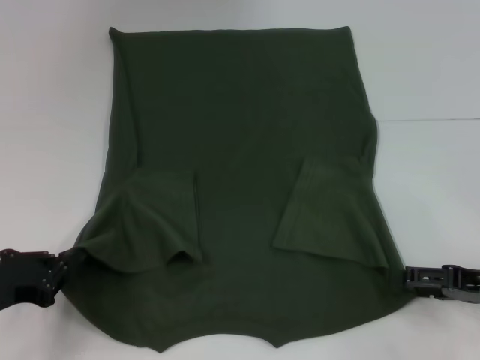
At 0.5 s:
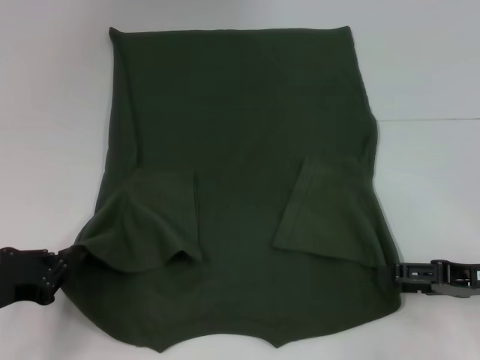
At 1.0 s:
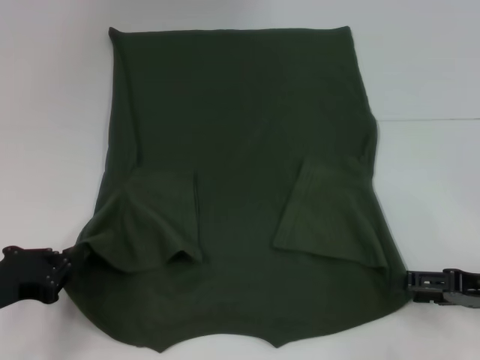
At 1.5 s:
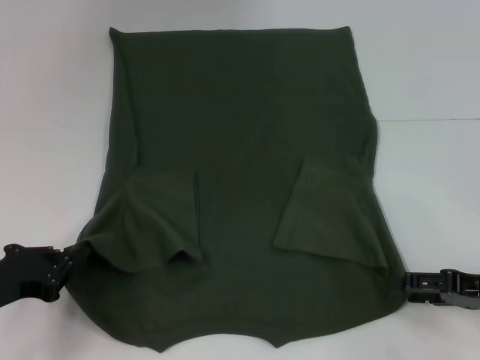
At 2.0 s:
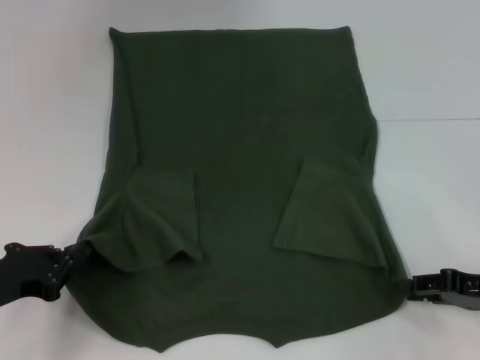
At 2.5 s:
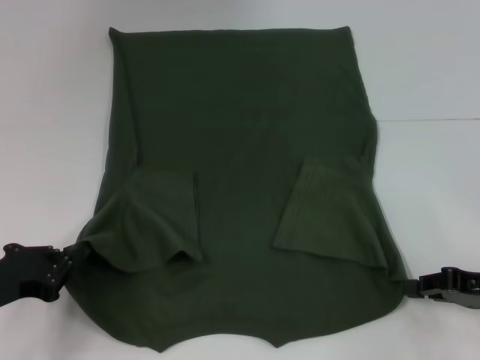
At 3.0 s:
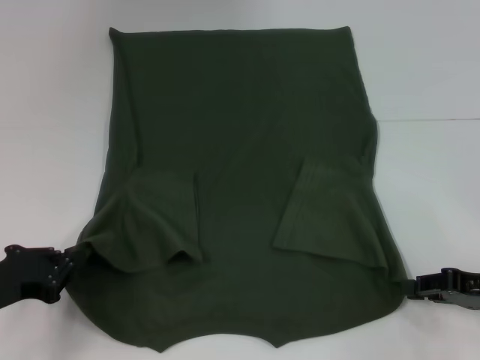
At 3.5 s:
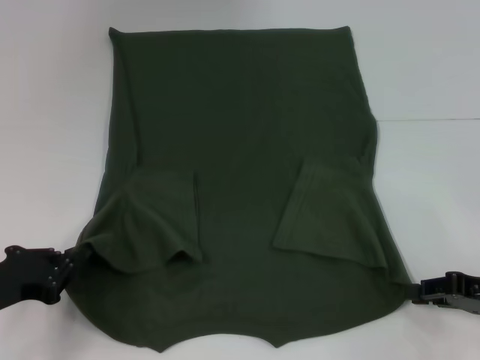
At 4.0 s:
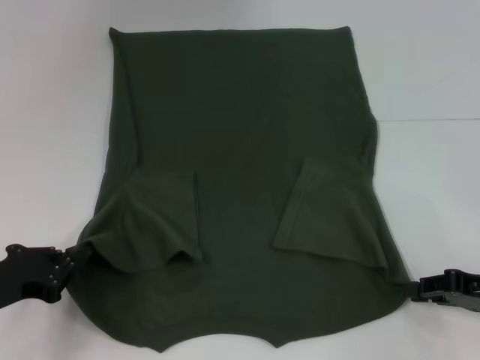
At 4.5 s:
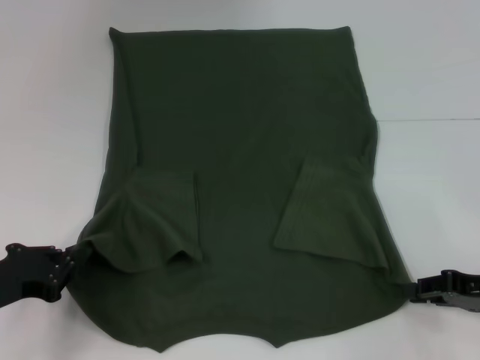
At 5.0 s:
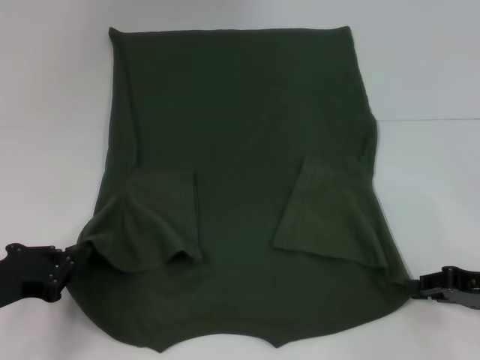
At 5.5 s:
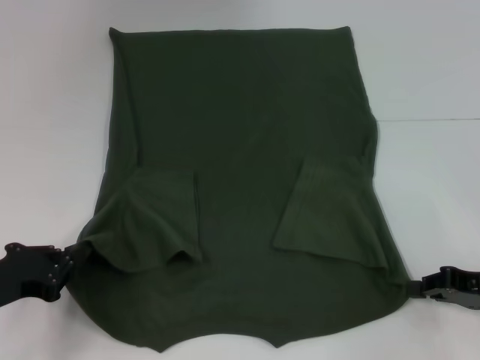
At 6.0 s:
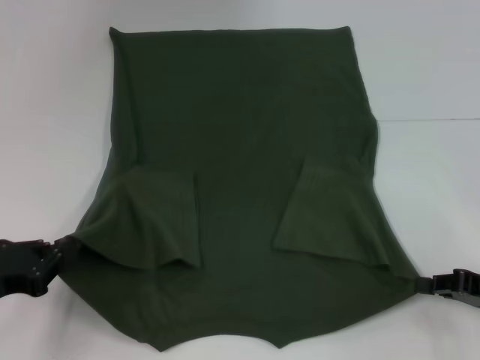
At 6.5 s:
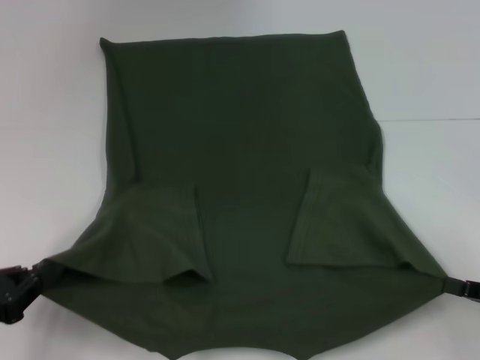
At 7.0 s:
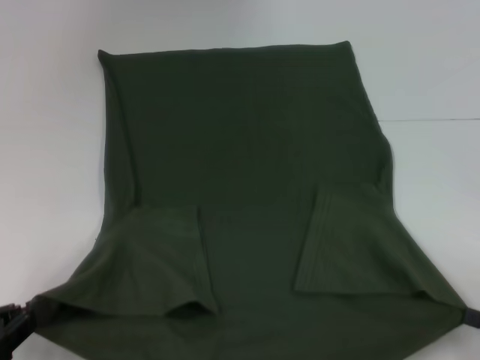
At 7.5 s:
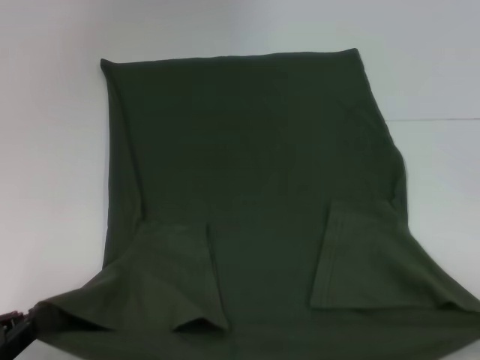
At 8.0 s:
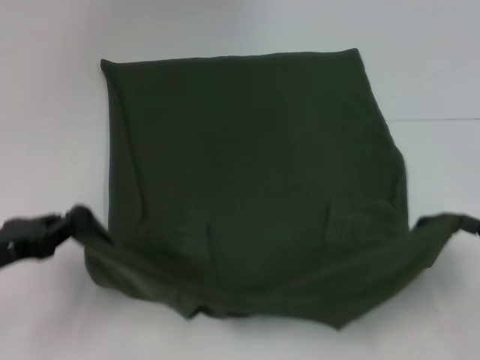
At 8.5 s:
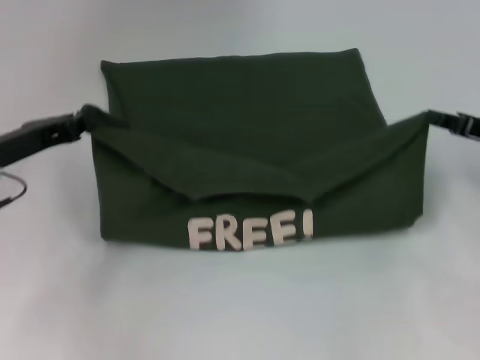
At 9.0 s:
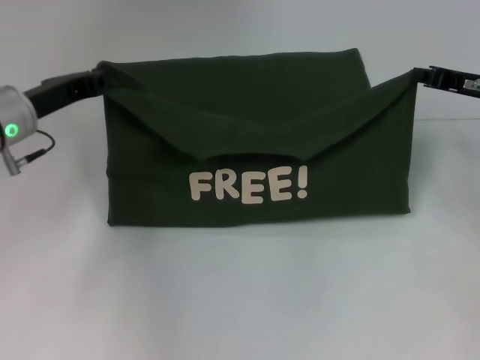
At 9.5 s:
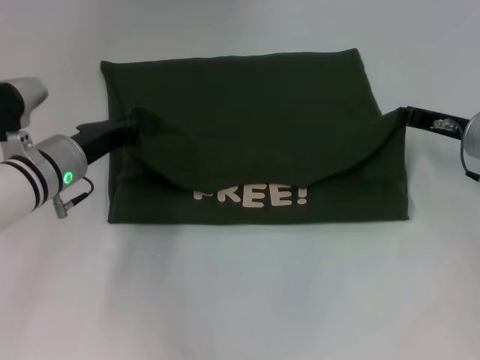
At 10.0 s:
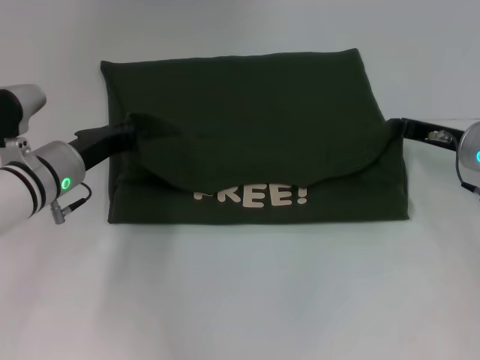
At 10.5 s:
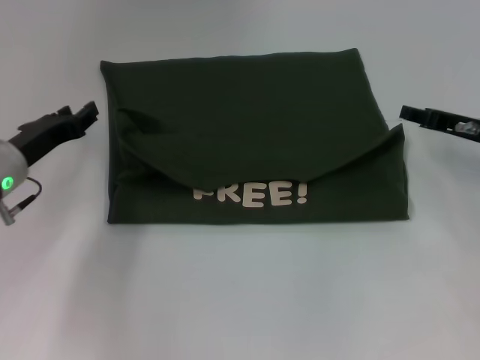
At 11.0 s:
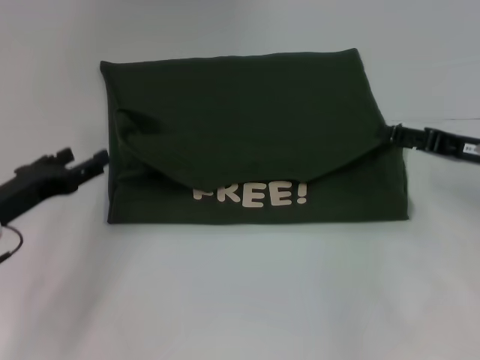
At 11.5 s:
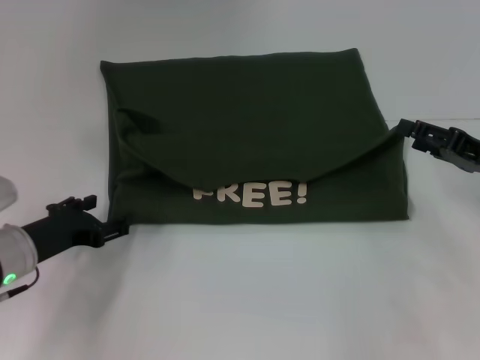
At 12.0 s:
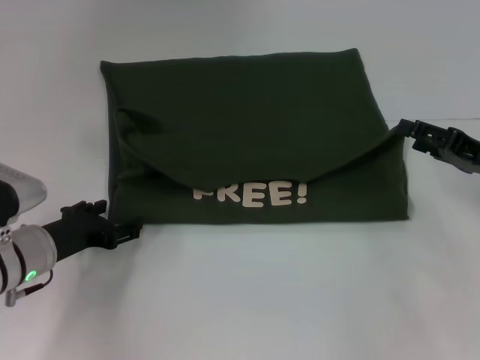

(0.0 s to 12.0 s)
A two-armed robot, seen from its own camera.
Step, 0.0 s - 6.5 s: Grab the bottom right corner with your right hand.
Step, 7.0 s - 10.0 s: Fold the clothes with your left hand.
Step, 7.0 s - 10.0 s: Fold the clothes with your right hand.
0.0 s - 2.0 s: The right gripper closes up.
2.0 s - 4.0 s: Neither gripper changes place.
4.0 s - 6.0 s: The grippers make only small movements.
6.0 s - 8.0 s: The left gripper moves some 10 cm backward and comes back. The right gripper reaches approximately 10 cm backward, then returns.
8.0 s - 10.0 s: The right gripper moves forward and to the left, some 20 cm. Meanwhile the left gripper goes about 15 cm forward and to the right.
10.0 s - 12.0 s: The grippers both shift backward by roughly 5 cm. The right gripper opens its fingers; the left gripper opens up.

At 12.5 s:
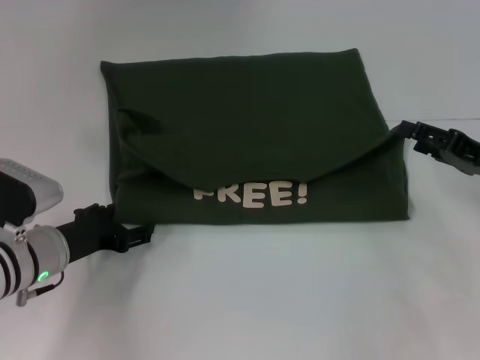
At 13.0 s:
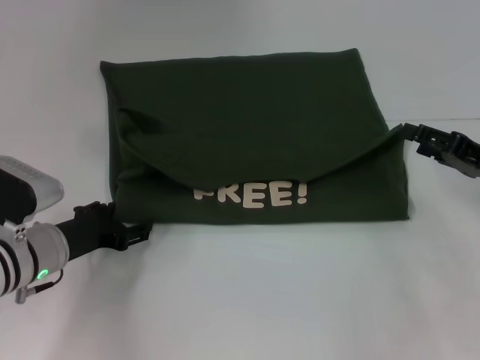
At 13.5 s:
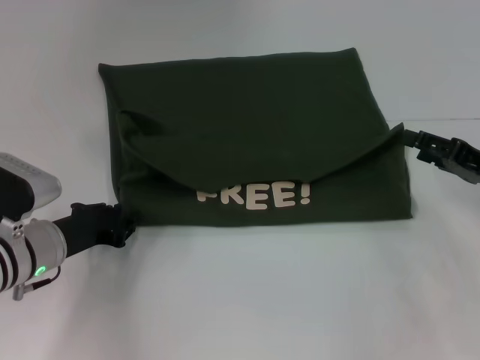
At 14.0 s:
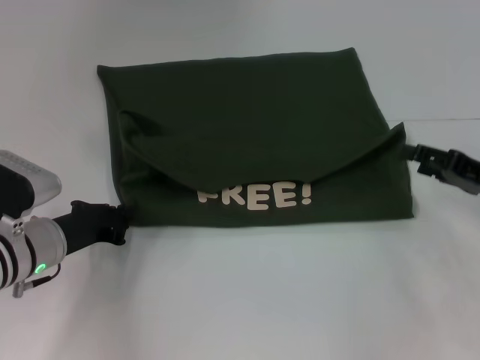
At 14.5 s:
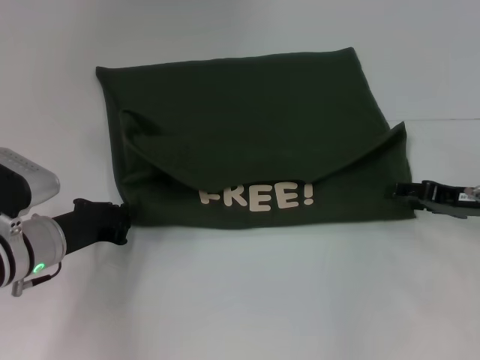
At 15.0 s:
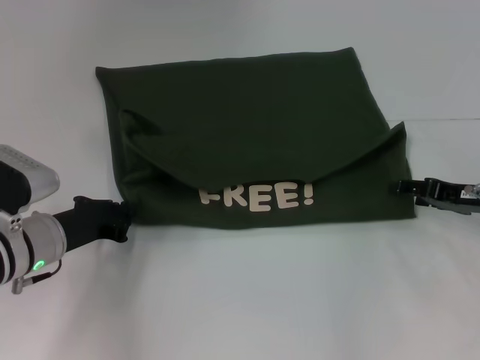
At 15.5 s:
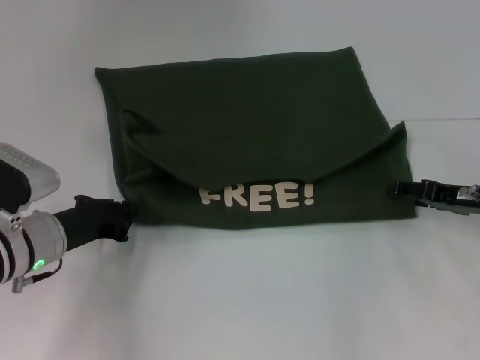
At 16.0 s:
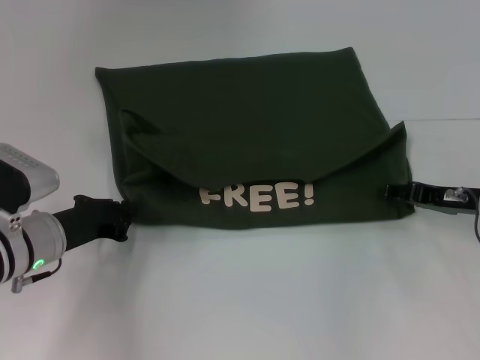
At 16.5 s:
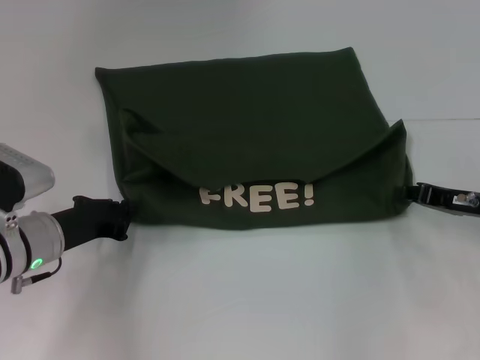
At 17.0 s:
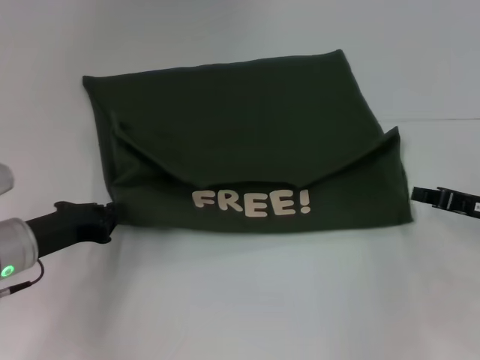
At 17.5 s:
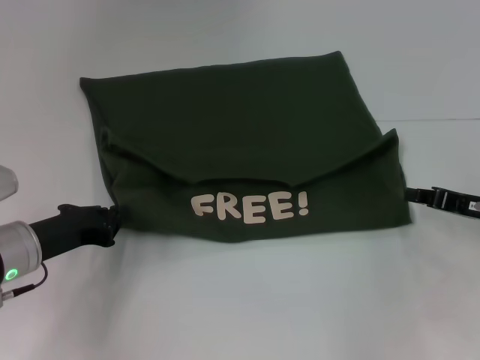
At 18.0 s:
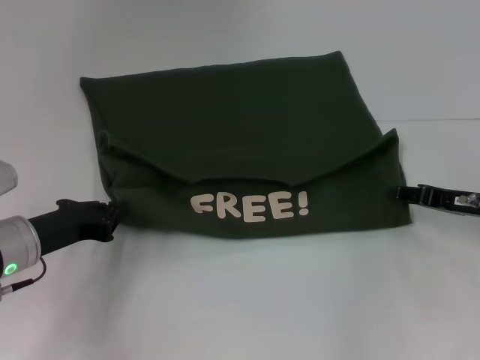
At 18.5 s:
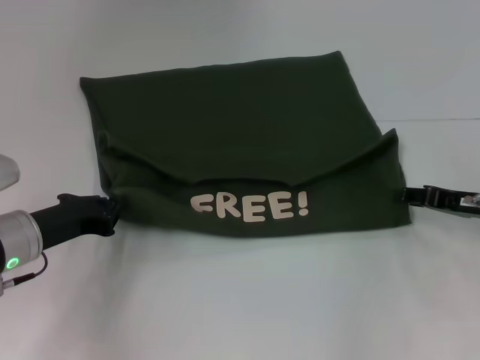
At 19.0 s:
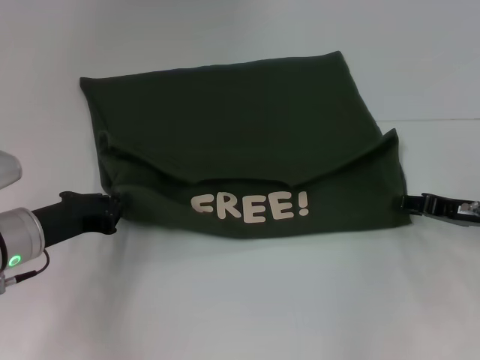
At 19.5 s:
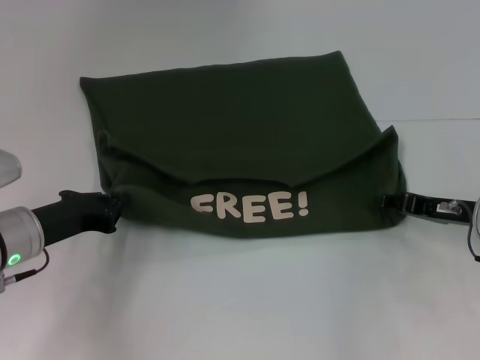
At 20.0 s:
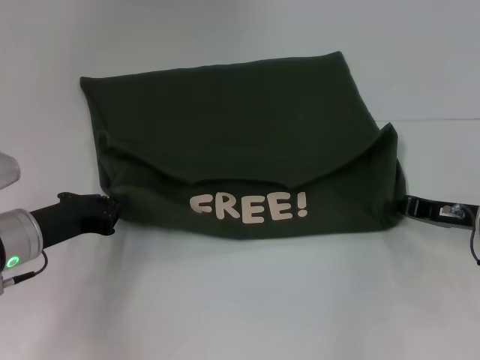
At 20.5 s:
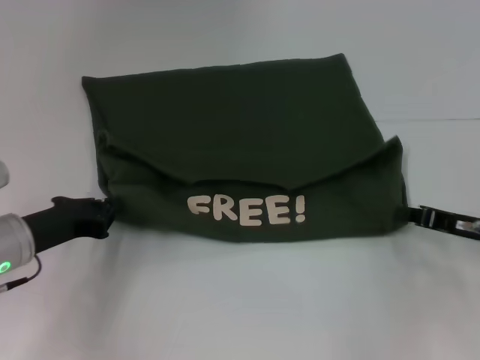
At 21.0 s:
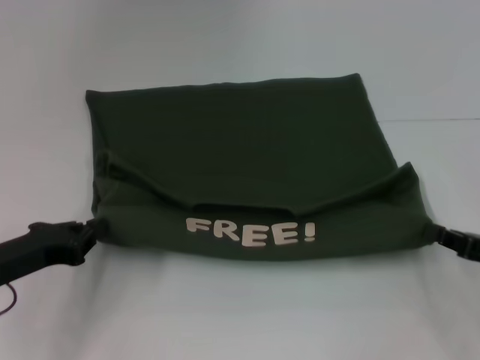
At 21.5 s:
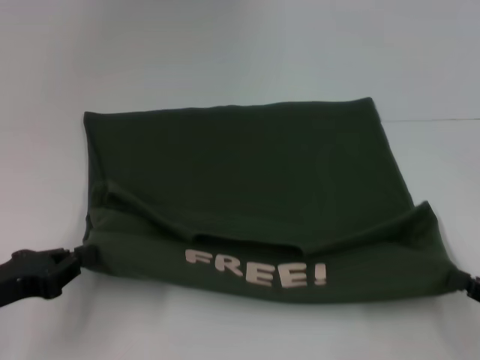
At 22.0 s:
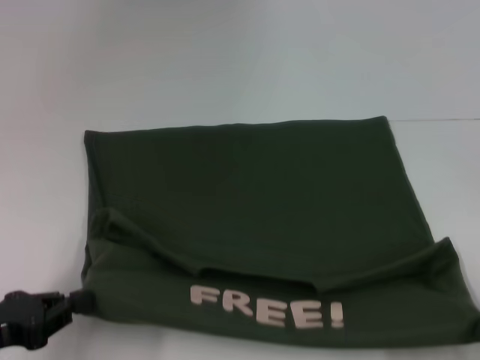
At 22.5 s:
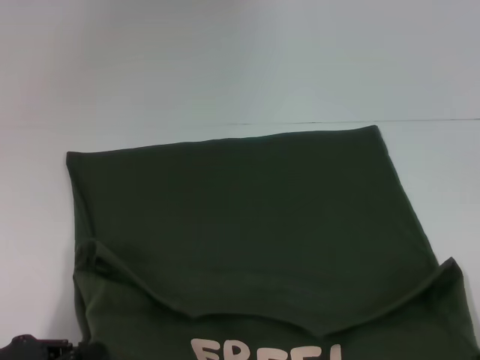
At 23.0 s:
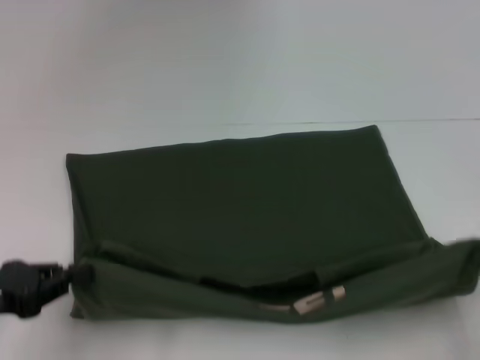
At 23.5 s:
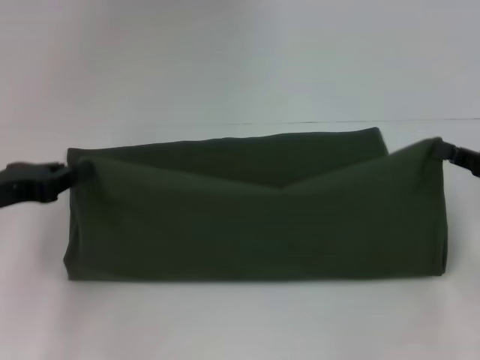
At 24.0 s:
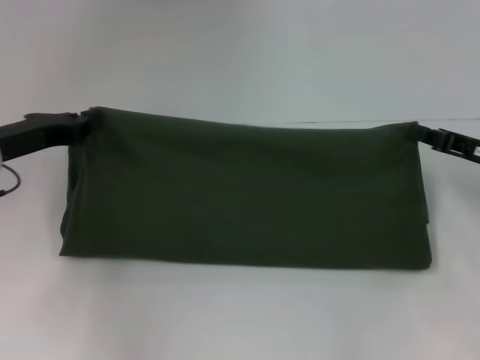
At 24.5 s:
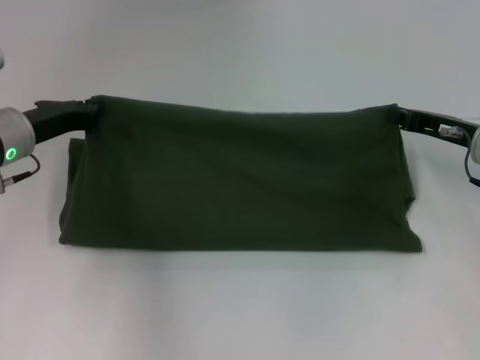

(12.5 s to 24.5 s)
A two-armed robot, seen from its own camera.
Step, 12.5 s - 22.5 s: Pull the clothes with your left hand.
Step, 12.5 s - 22.5 s: Pull the clothes with your right hand.
12.5 s - 14.5 s: The left gripper closes its fingers.
14.5 s - 16.5 s: The right gripper closes its fingers.
16.5 s - 18.5 s: The right gripper closes and opens again.
18.5 s - 20.5 s: The right gripper closes.
20.5 s - 22.5 s: The left gripper moves backward and to the left, about 15 cm. The right gripper goes approximately 20 cm backward.
22.5 s - 24.5 s: The two grippers go roughly 25 cm forward.

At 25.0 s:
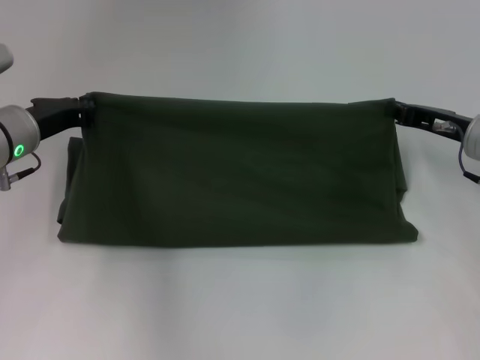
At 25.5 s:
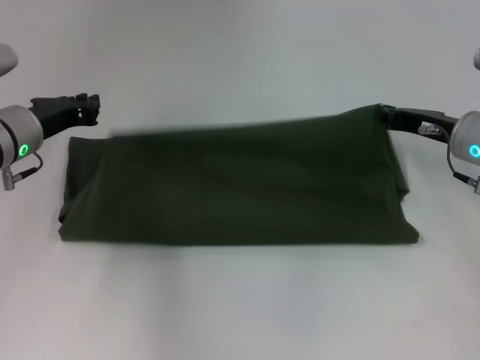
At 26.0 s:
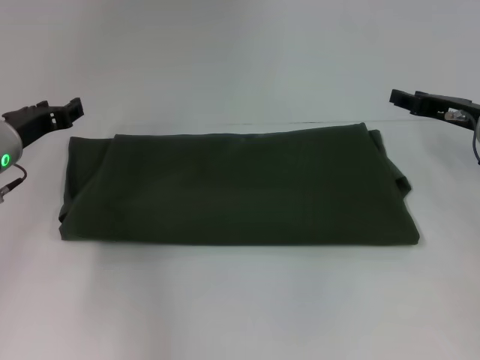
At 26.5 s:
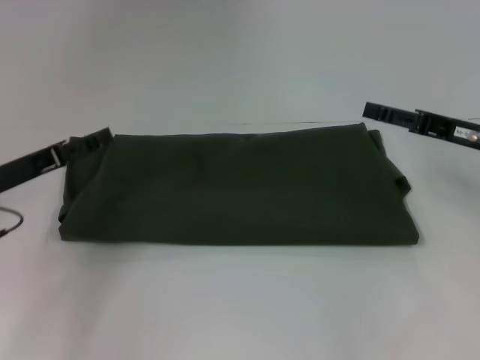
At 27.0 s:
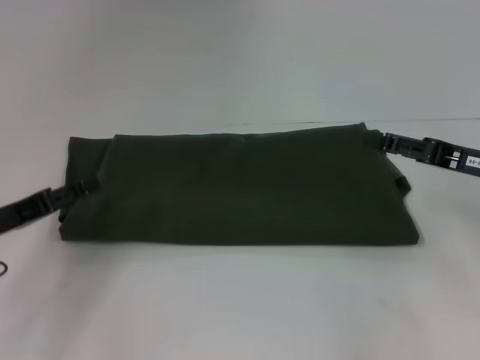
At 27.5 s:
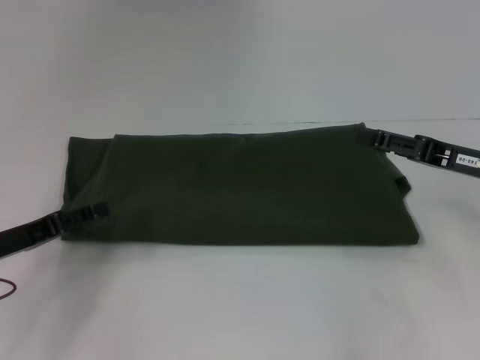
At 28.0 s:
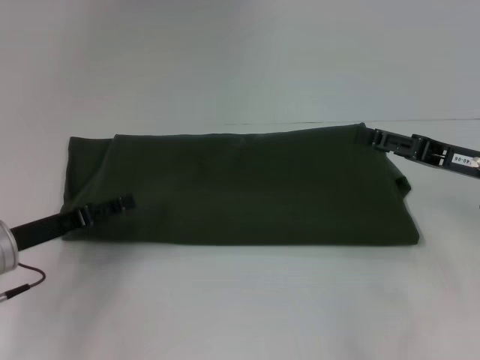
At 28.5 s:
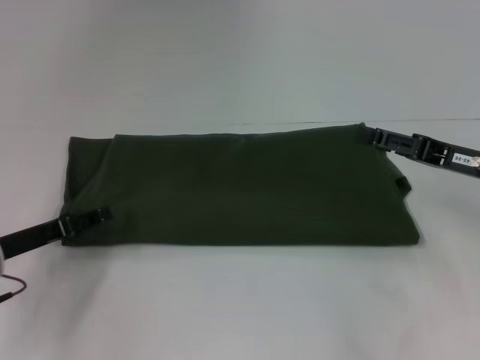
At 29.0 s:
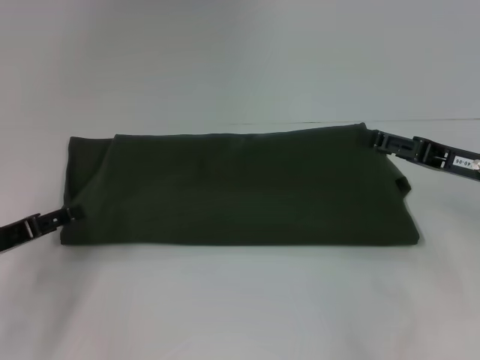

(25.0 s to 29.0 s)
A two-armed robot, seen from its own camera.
25.0 s - 27.0 s: The left gripper heads backward and to the left, covering some 15 cm, and opens up. Meanwhile the right gripper heads backward, covering about 5 cm, and opens.
27.0 s - 29.0 s: The grippers make only small movements.
